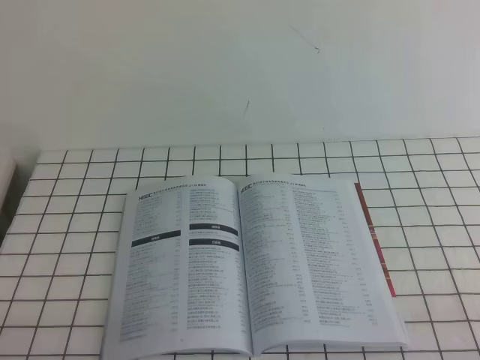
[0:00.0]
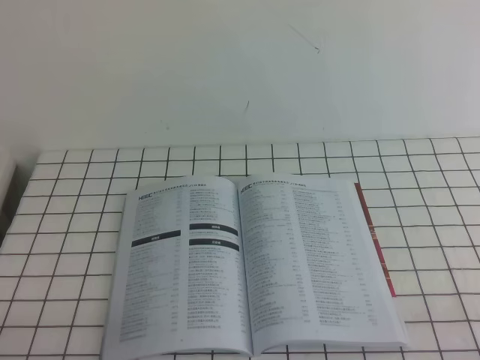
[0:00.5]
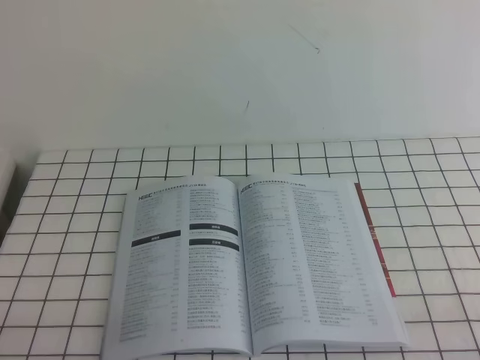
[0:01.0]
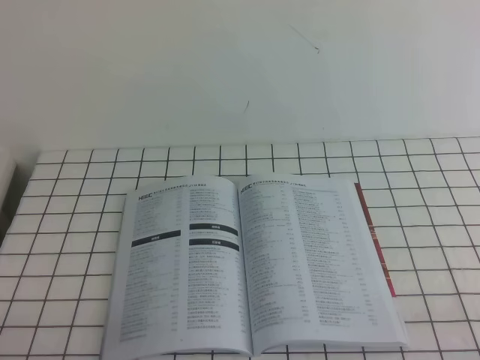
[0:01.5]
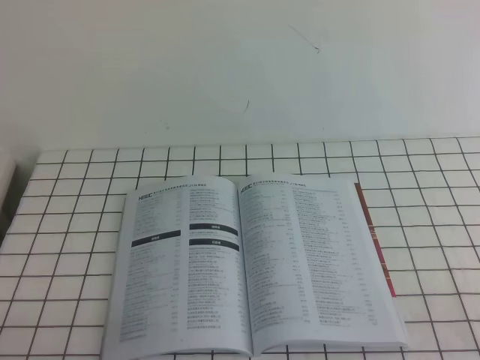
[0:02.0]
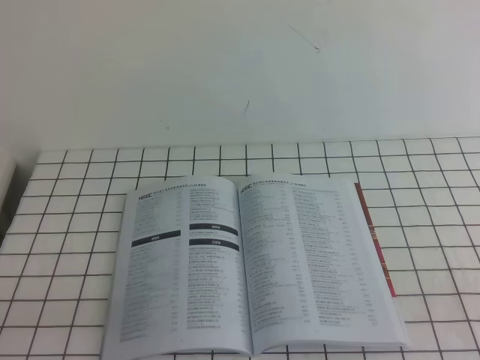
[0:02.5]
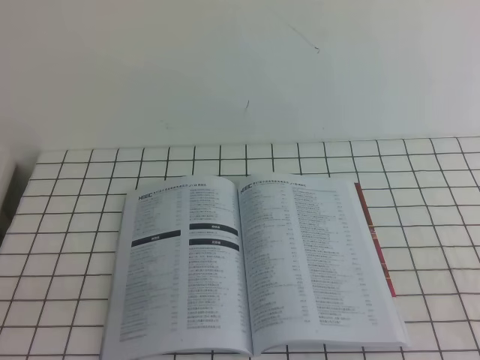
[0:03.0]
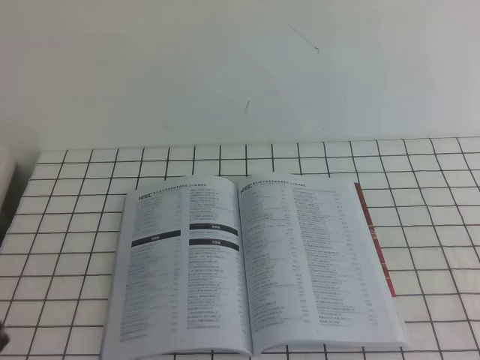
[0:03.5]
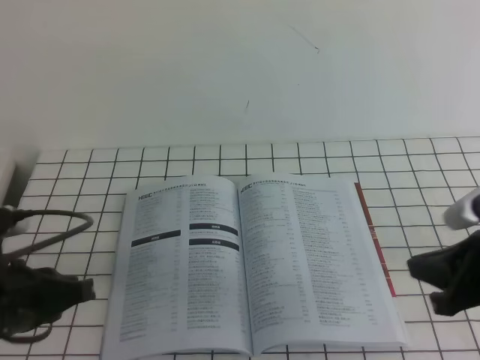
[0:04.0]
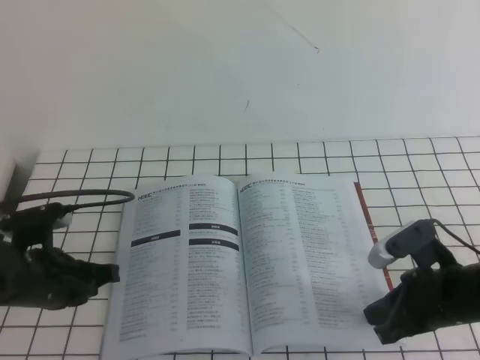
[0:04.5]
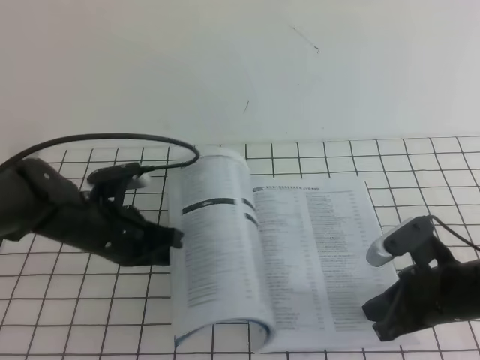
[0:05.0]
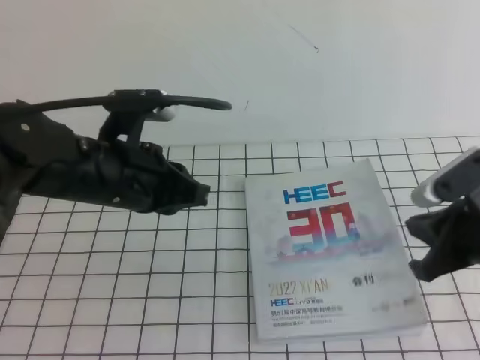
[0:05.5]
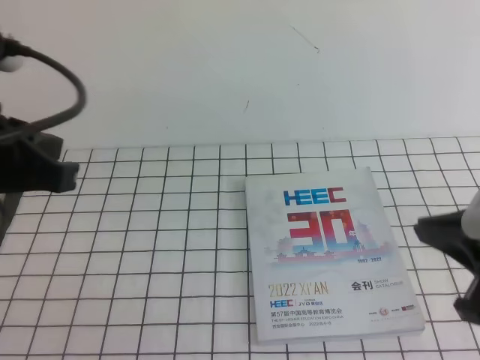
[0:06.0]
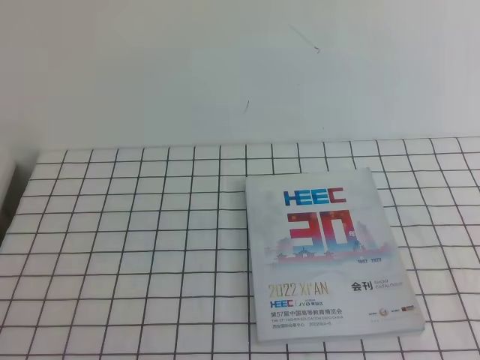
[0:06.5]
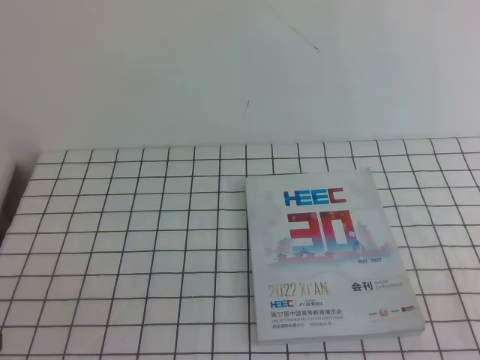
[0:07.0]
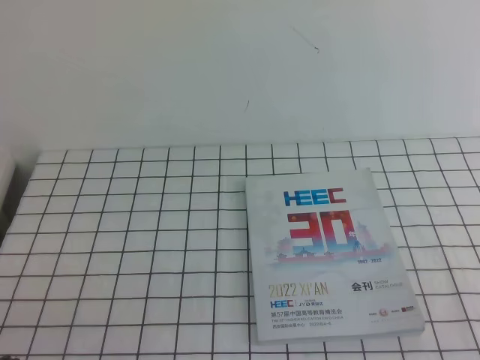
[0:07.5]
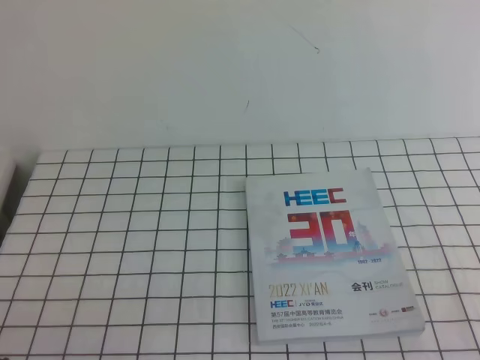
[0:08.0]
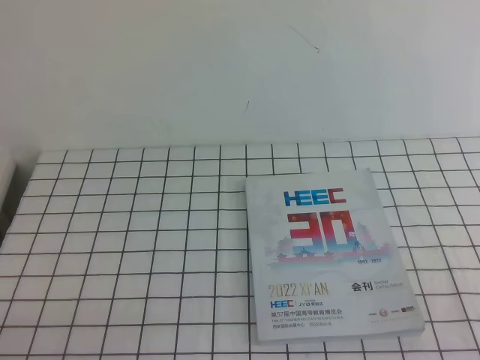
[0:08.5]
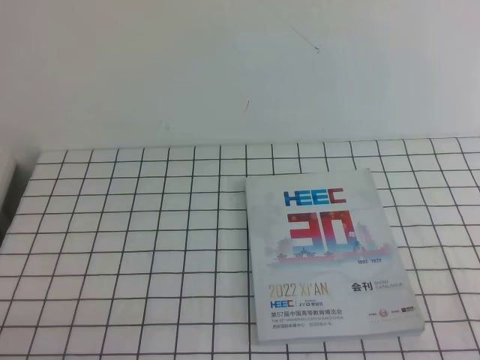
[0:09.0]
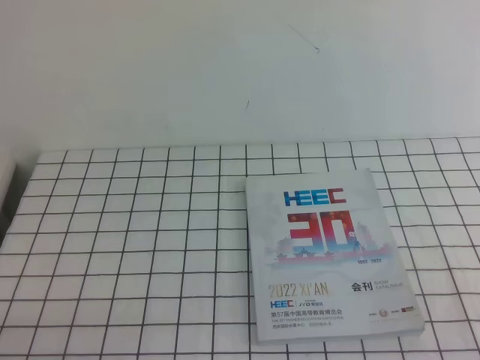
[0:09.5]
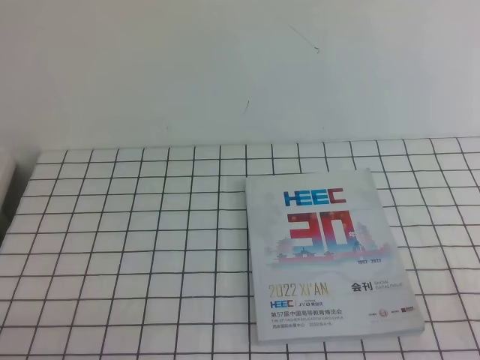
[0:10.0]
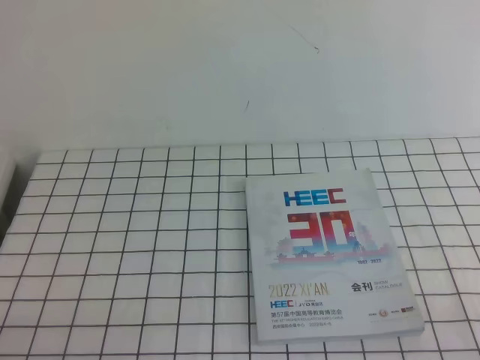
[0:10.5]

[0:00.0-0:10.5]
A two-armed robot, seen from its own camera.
Task of the whole recording: on the white tablecloth, hold the book with one hand and close it with the other.
Step, 0:00.0 to 0:10.5: Close the open book.
0:02.0 to 0:04.0: The left gripper moves forward and upward, roughly 15 cm; the right gripper is displaced forward and to the left by roughly 20 cm.
0:04.0 to 0:06.5: The left gripper heads upward and backward, covering about 15 cm. The right gripper travels backward and upward by about 10 cm.
